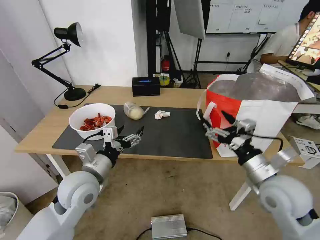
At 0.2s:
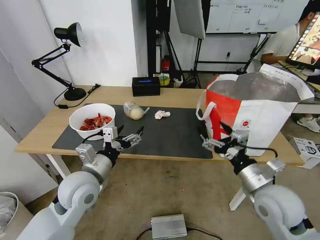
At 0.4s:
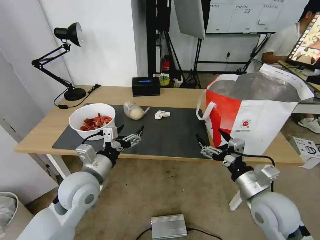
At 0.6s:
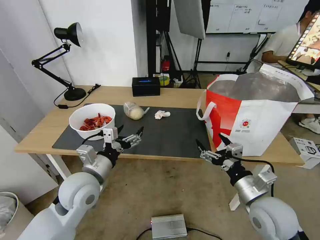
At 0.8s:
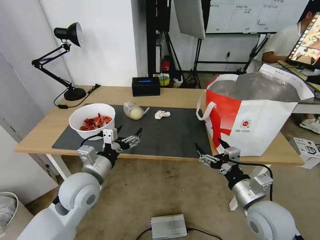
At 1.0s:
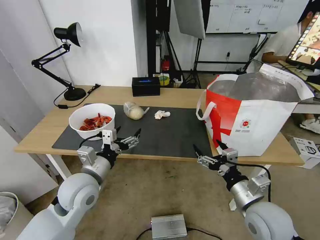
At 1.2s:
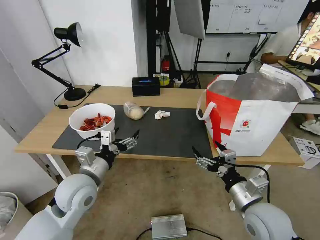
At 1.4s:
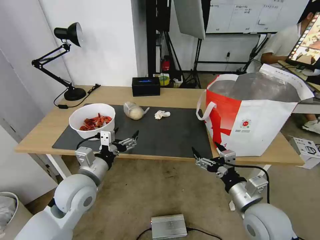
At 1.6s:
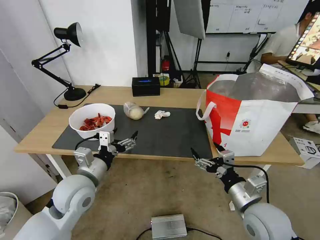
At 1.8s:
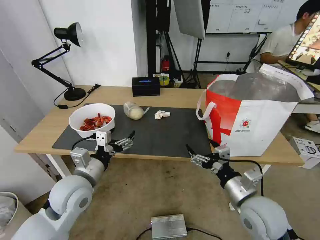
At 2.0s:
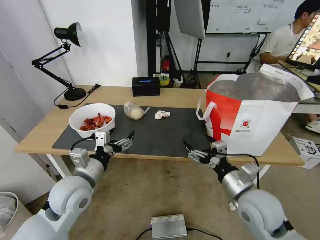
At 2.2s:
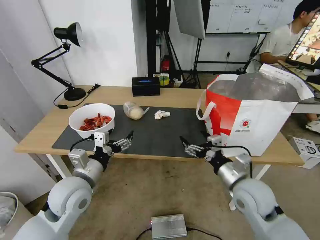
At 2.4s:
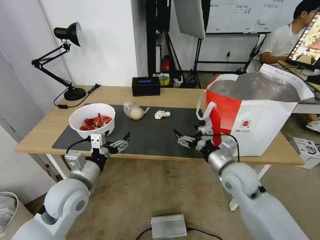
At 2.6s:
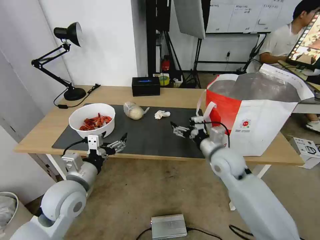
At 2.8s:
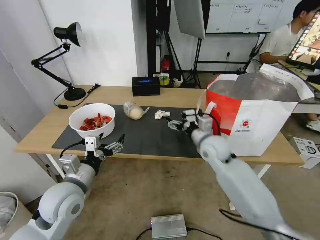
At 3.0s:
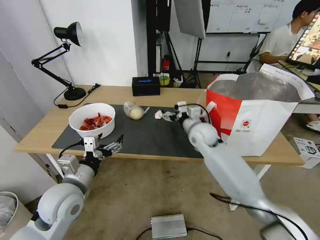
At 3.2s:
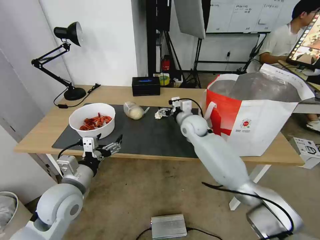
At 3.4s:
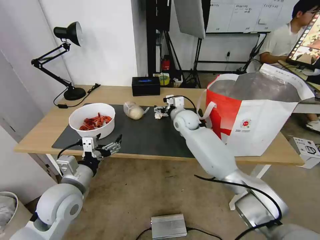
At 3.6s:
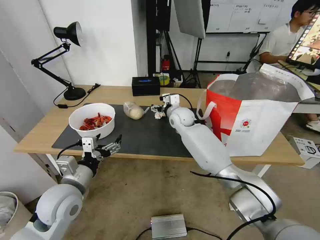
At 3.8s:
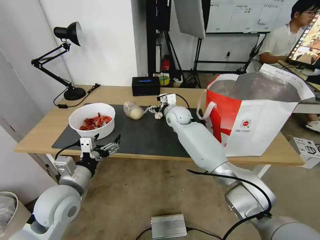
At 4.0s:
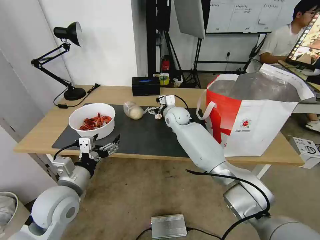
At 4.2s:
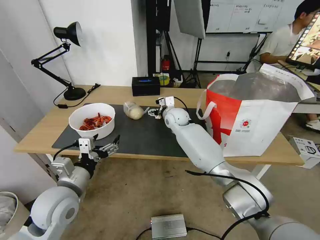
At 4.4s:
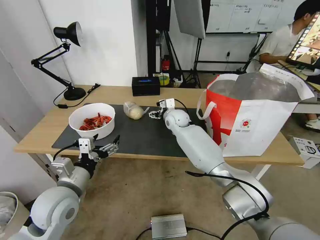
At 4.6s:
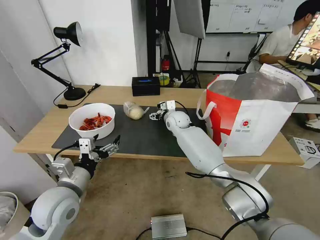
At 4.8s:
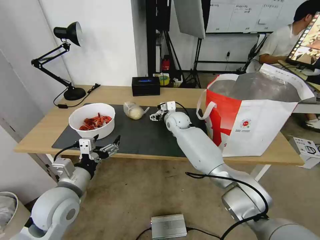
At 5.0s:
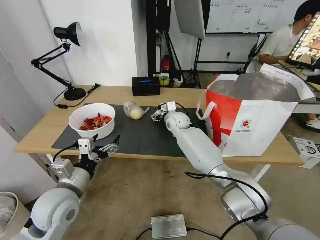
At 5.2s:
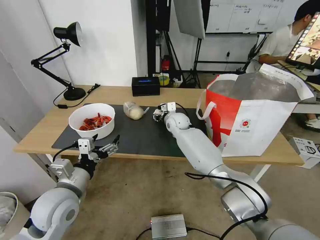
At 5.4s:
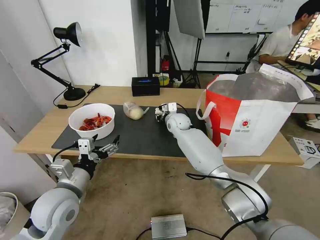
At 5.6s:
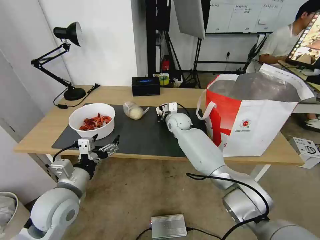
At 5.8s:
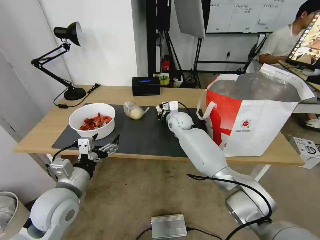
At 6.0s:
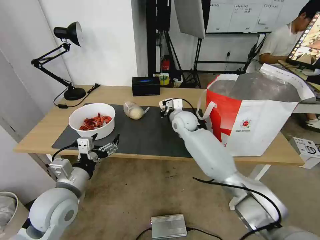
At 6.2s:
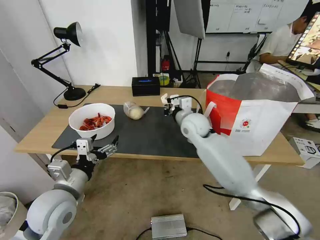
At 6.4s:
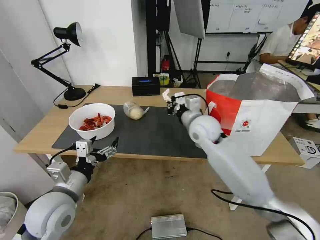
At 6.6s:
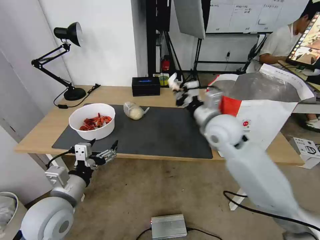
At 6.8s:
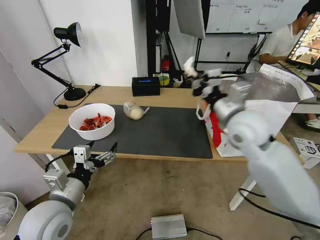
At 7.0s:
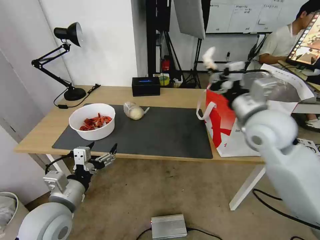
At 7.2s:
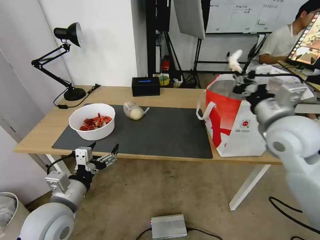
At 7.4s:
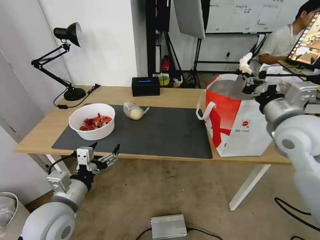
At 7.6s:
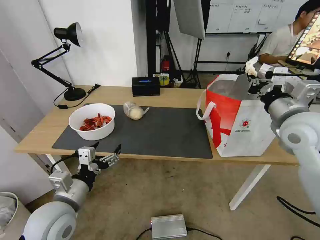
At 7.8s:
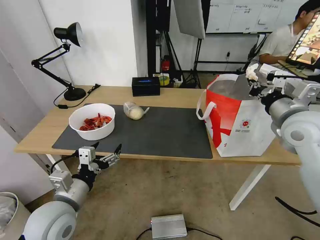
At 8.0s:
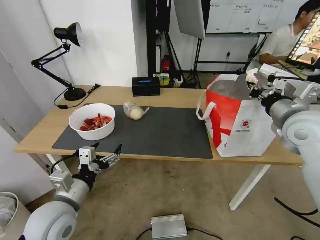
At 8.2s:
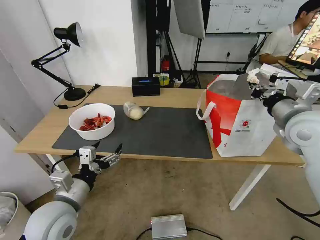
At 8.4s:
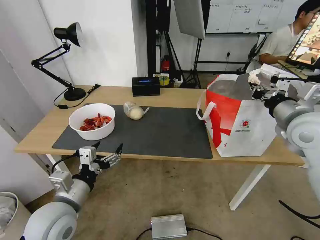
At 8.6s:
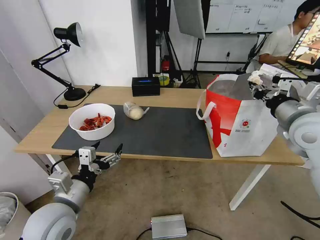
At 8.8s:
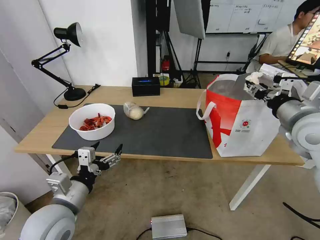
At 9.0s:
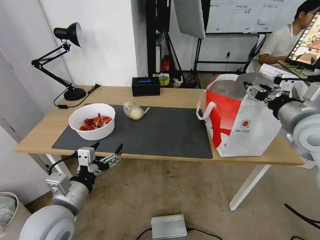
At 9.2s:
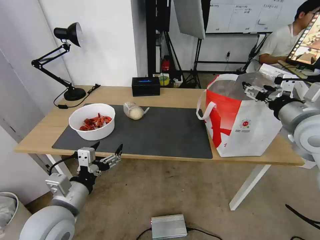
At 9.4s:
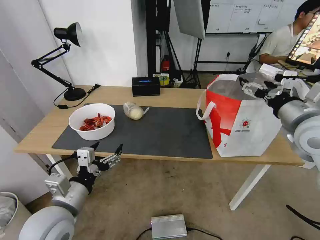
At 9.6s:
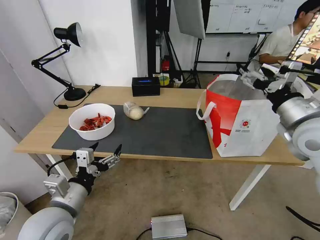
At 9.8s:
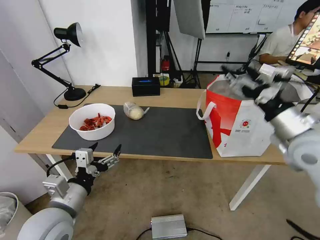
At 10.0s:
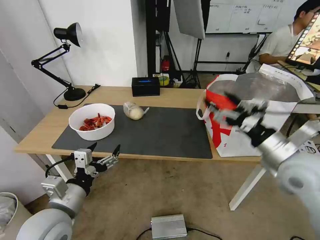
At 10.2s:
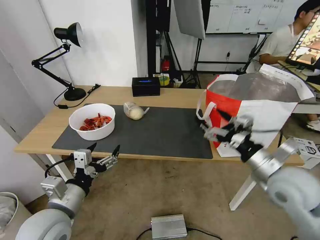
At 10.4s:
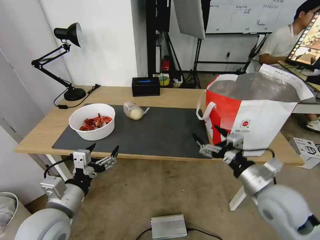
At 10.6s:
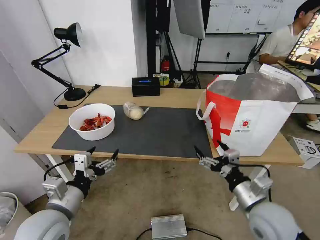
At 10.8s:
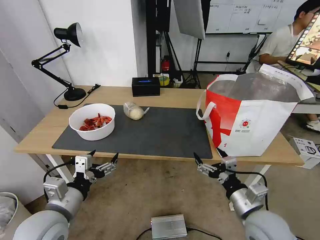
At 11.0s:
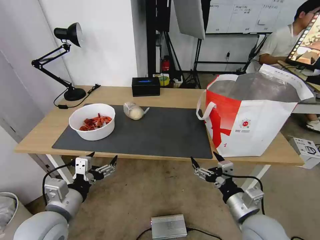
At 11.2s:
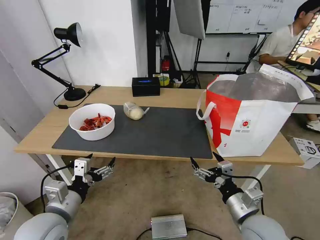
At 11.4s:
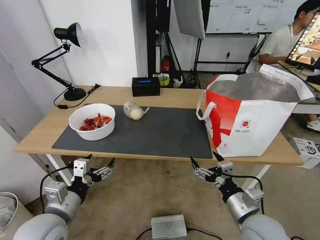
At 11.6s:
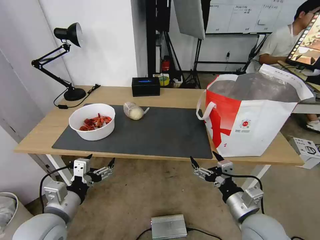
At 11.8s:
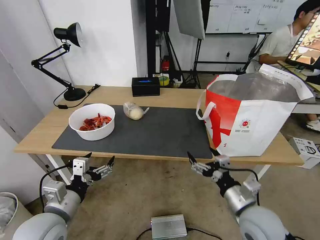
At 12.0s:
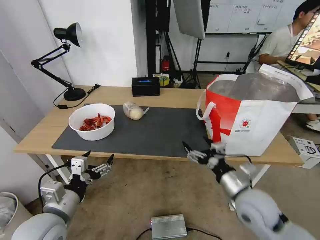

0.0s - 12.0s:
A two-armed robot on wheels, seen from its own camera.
Task of the whole recording: Pick up the trash from the table and place it into the takeout bag.
0.0s - 1.6s: The right gripper heads downward, covering about 5 cm.
1.6s - 3.0s: The right gripper travels forward by some 25 cm.
3.0s - 4.4s: The right gripper heads forward and to the left, covering some 15 cm.
4.4s - 6.0s: The right gripper closes up.
6.0s - 7.6s: The right gripper is displaced to the right, backward and upward by approximately 35 cm.
7.6s - 9.0s: The right gripper opens its fingers.
9.0s - 10.4s: The right gripper shifts approximately 20 cm downward, backward and to the left, and opens its fingers.

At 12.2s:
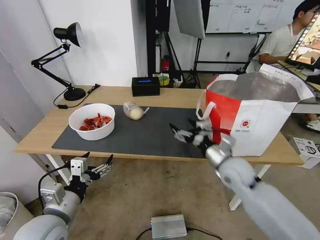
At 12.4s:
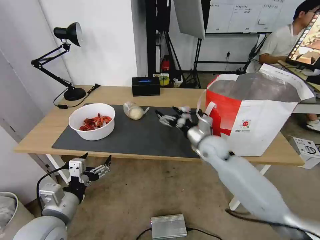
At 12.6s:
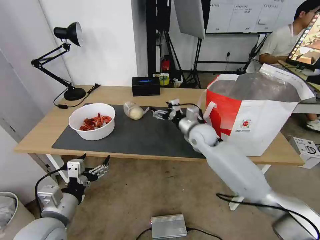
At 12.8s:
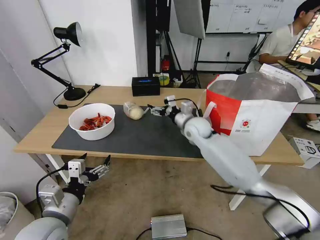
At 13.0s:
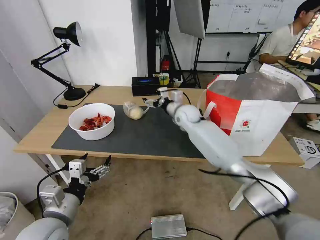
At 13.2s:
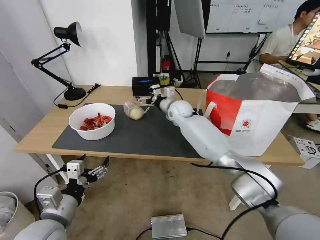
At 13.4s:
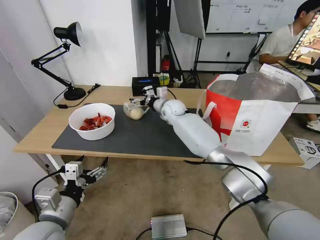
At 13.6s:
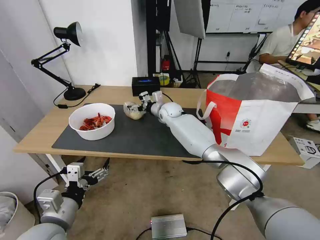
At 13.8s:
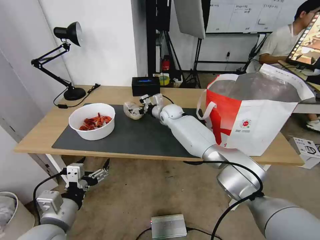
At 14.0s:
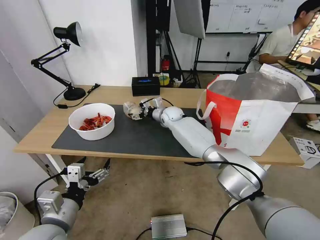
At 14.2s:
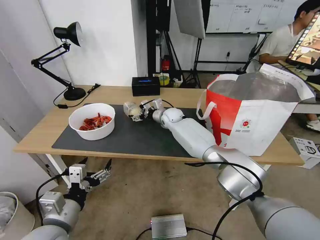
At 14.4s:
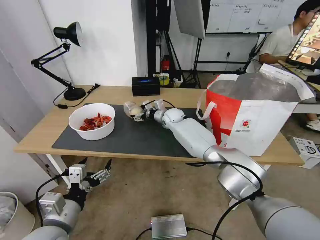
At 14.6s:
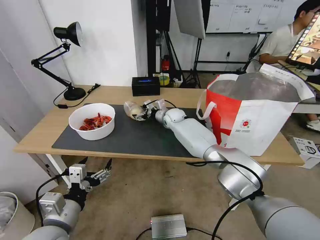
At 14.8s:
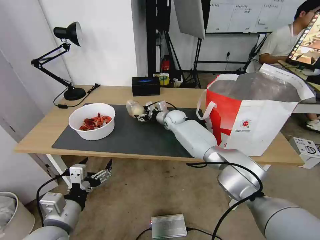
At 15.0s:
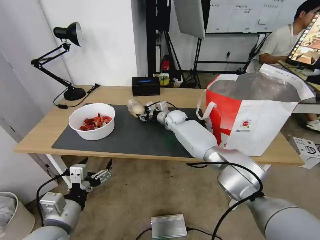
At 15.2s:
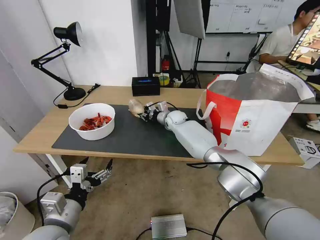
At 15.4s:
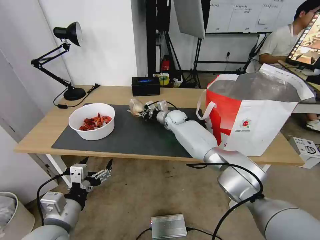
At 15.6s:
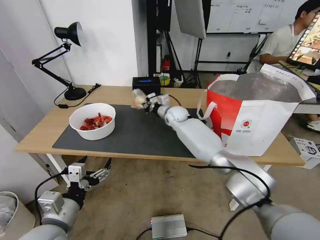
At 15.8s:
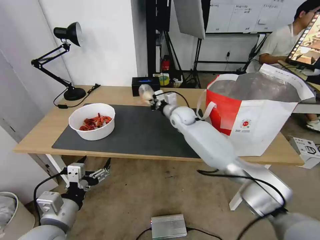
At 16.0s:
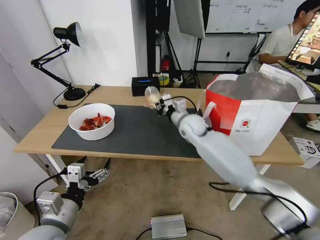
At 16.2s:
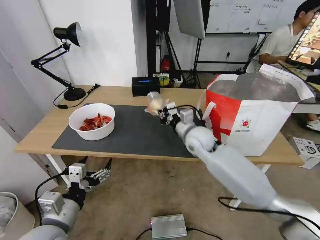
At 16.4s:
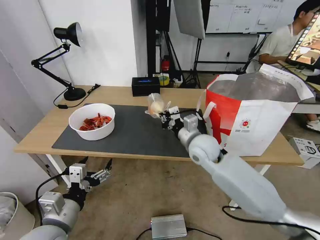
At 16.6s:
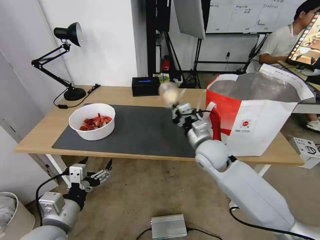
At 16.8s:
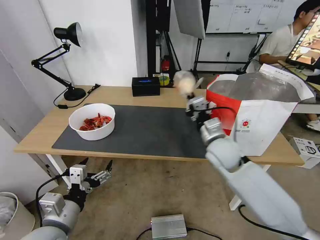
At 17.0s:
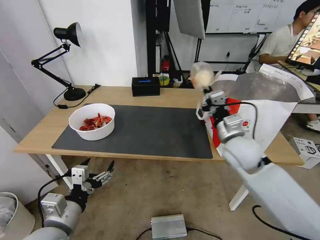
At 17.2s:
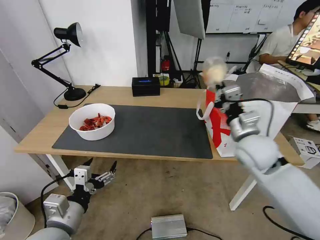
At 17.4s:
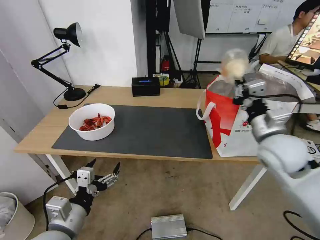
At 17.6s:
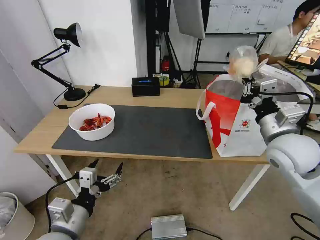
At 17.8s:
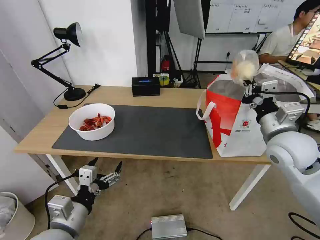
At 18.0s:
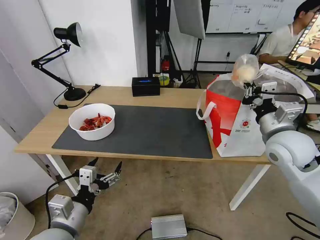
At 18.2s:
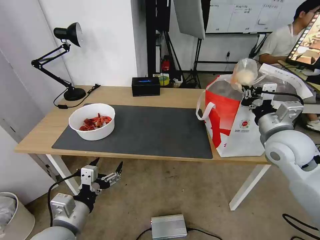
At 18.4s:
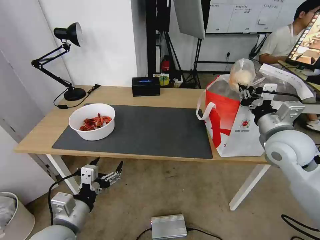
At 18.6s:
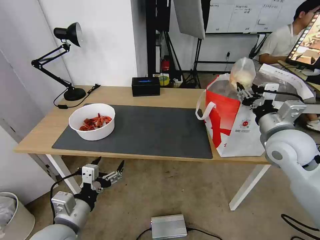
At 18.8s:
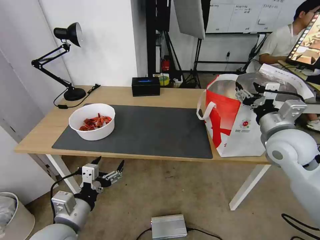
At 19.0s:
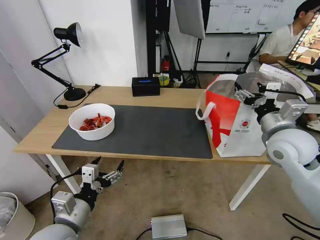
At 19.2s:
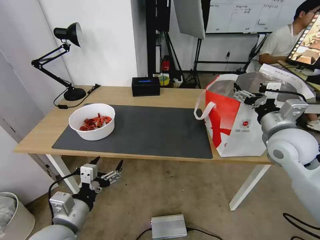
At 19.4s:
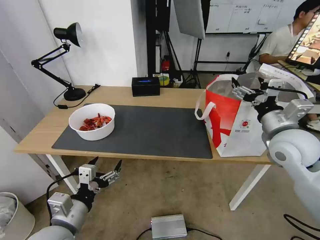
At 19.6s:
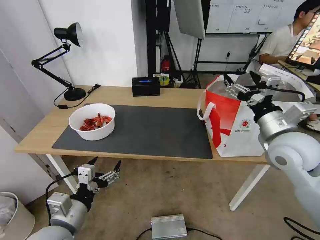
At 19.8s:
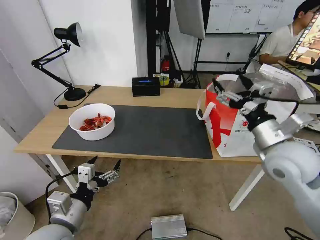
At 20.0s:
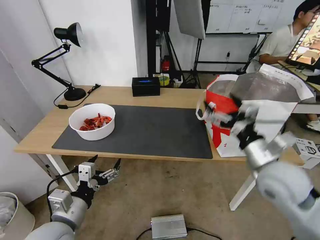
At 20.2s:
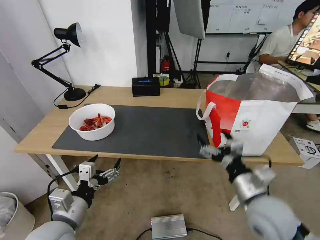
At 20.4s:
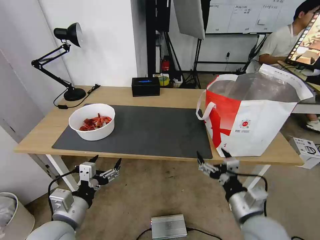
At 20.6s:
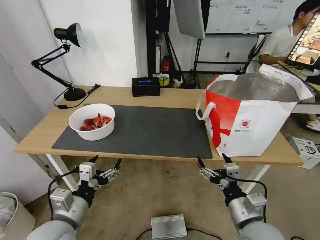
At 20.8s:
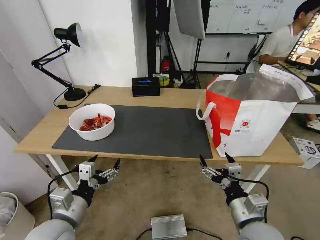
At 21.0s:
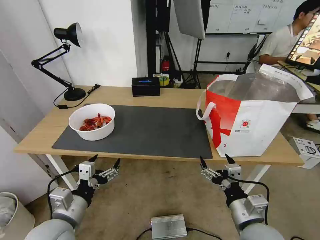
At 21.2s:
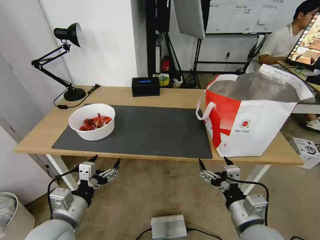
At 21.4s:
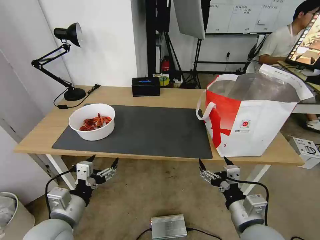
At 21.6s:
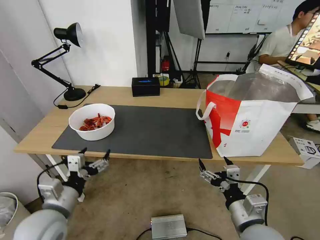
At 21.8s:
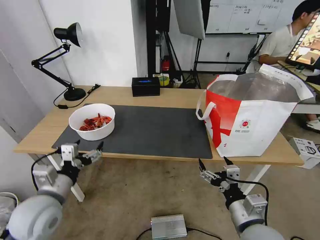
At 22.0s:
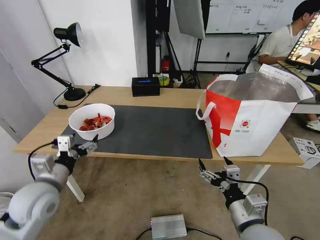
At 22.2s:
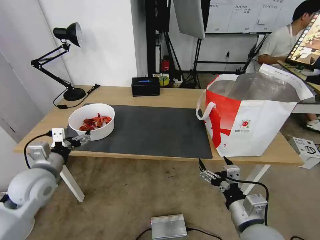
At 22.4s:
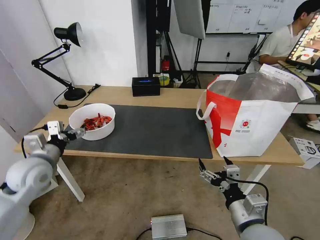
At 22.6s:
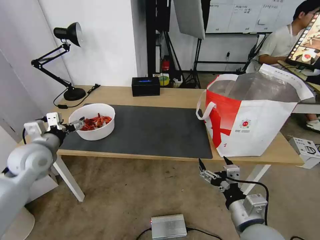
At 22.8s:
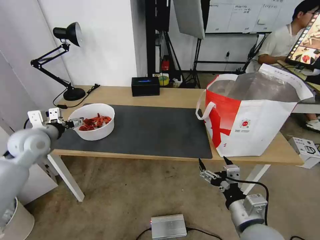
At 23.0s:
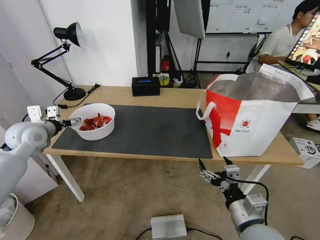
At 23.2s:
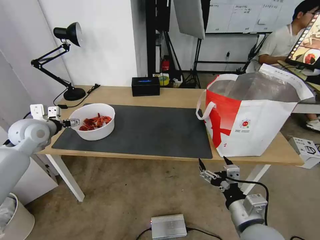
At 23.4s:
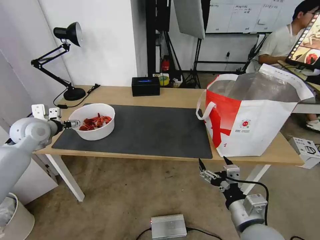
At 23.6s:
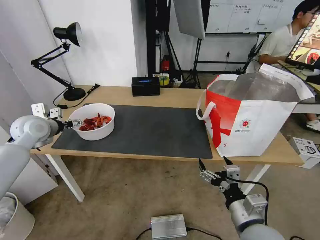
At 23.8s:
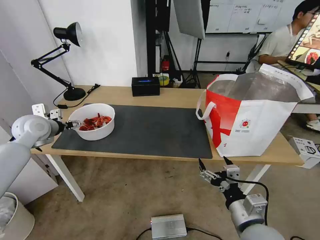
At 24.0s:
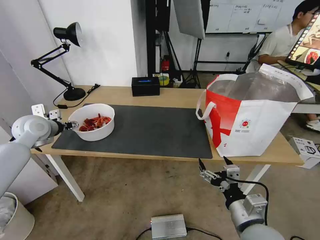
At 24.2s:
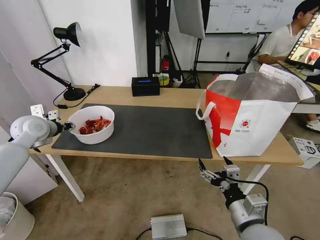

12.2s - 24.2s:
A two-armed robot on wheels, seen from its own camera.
Task of the whole recording: Pick up the trash from the table and place it into the takeout bag.
12.2s - 13.8s: The right gripper heads forward and to the left, covering about 35 cm.
13.8s - 15.2s: The right gripper closes its fingers.
15.2s - 16.6s: The right gripper moves backward, roughly 25 cm.
16.6s - 18.2s: The right gripper travels to the right and upward by roughly 20 cm.
18.2s - 19.8s: The right gripper ends up roughly 5 cm from where it was, and opens its fingers.
19.8s - 21.2s: The right gripper travels downward, backward and to the left by some 20 cm.
21.2s - 22.6s: The left gripper is displaced forward and to the left by roughly 20 cm.
22.6s - 24.2s: The left gripper heads forward, covering roughly 10 cm, and closes.
